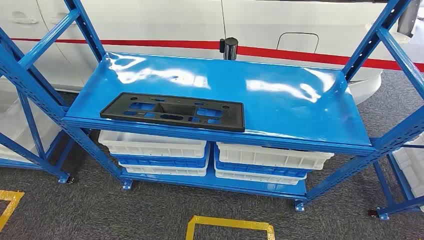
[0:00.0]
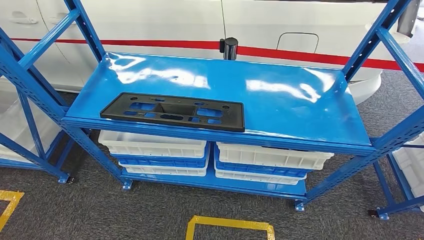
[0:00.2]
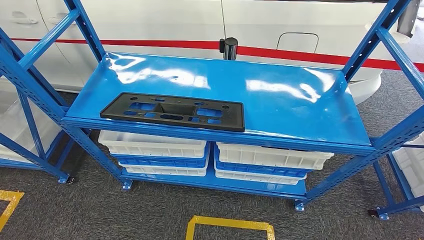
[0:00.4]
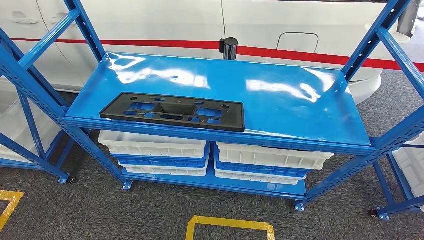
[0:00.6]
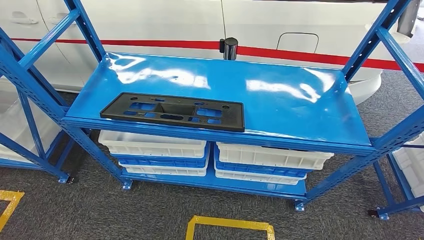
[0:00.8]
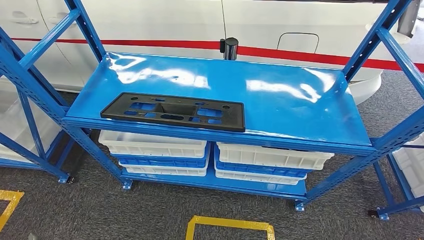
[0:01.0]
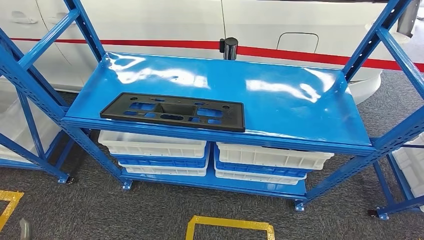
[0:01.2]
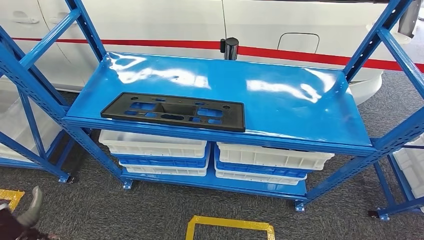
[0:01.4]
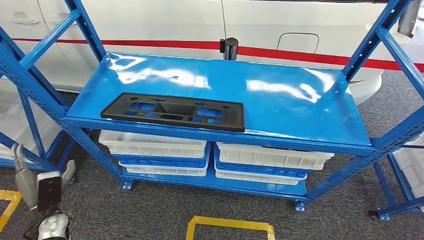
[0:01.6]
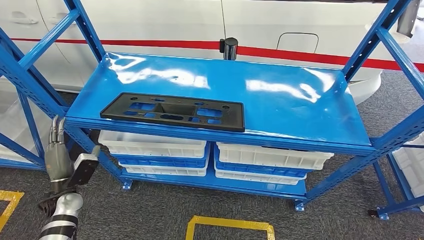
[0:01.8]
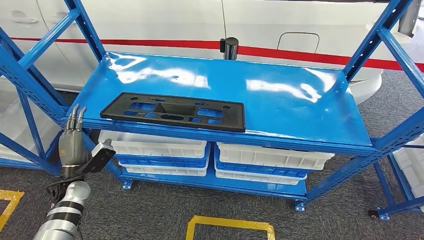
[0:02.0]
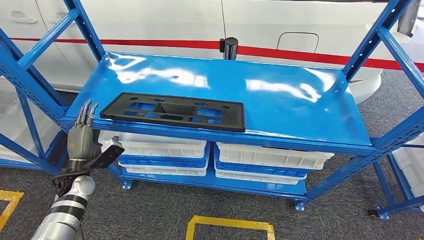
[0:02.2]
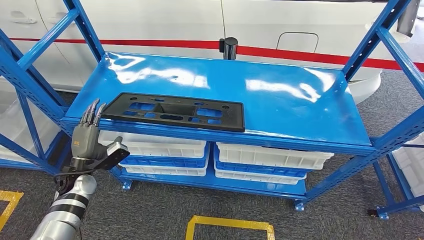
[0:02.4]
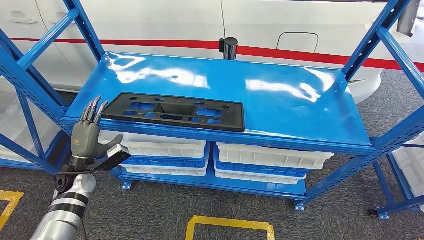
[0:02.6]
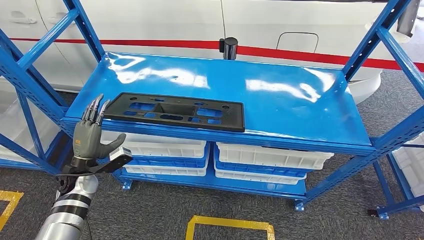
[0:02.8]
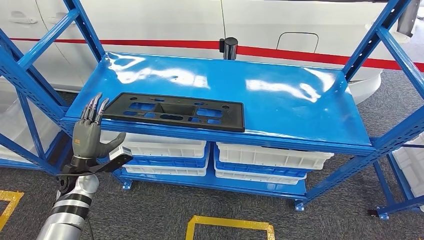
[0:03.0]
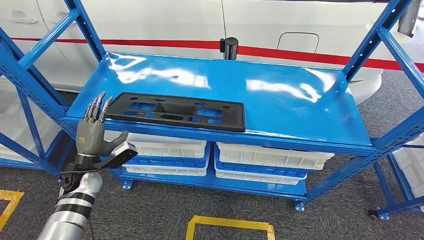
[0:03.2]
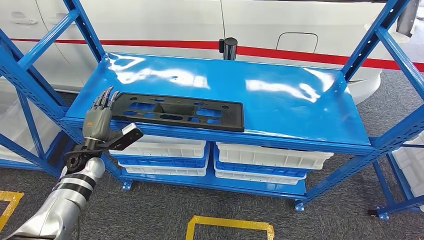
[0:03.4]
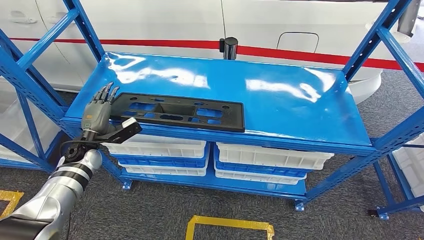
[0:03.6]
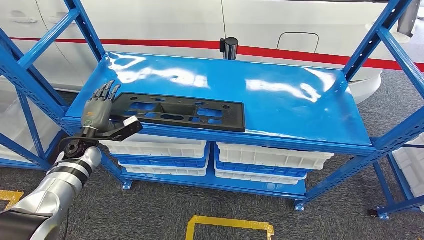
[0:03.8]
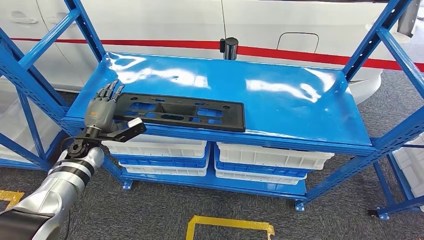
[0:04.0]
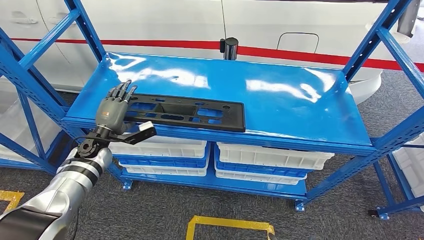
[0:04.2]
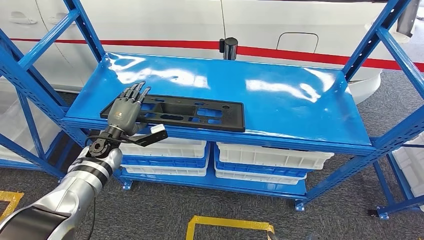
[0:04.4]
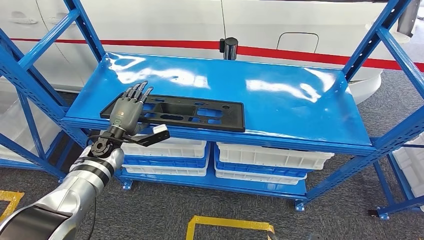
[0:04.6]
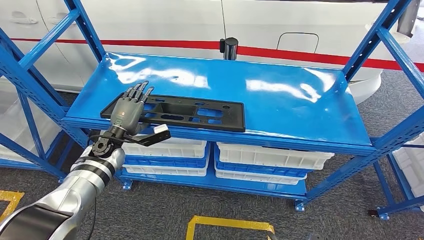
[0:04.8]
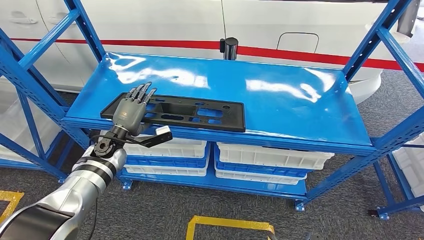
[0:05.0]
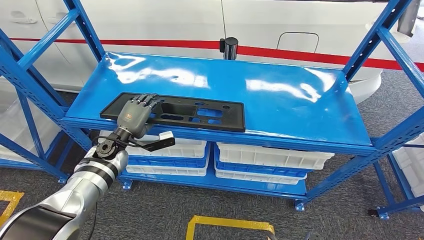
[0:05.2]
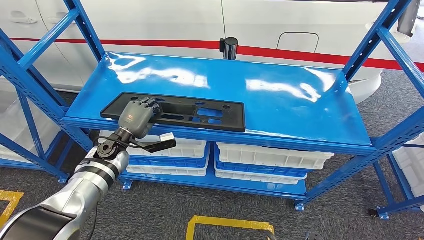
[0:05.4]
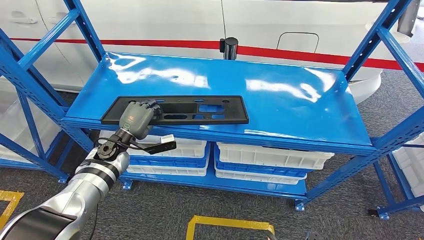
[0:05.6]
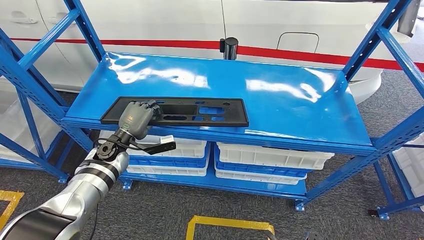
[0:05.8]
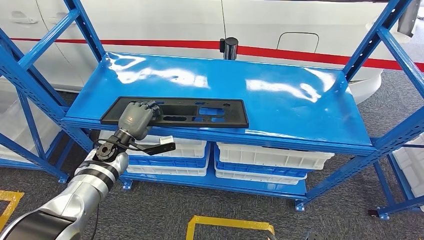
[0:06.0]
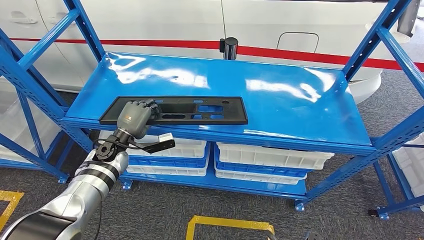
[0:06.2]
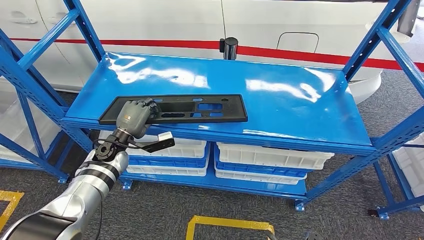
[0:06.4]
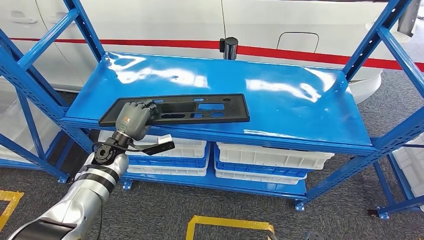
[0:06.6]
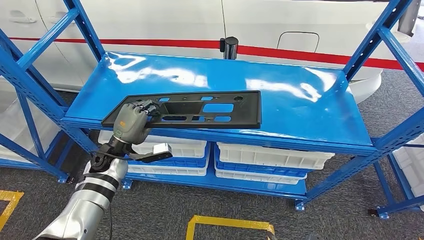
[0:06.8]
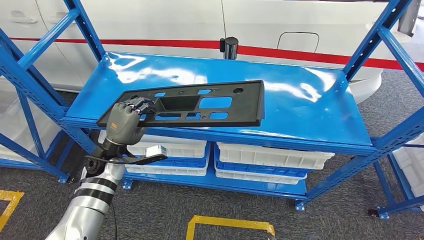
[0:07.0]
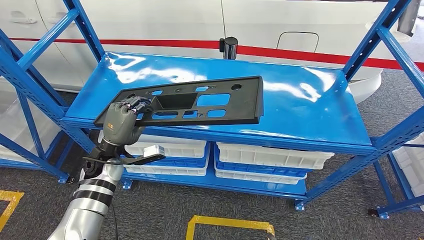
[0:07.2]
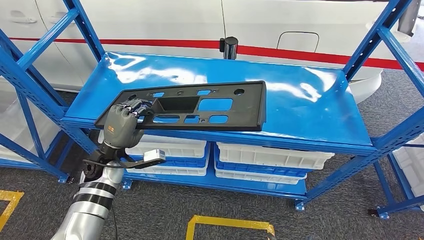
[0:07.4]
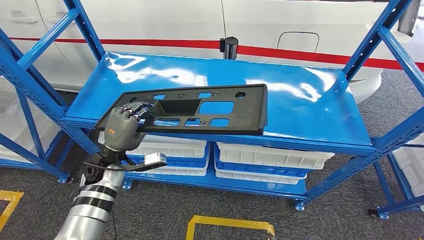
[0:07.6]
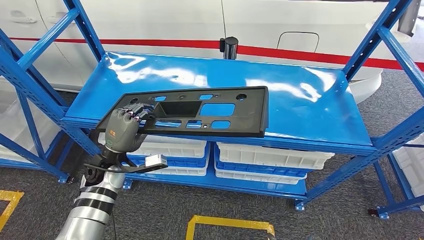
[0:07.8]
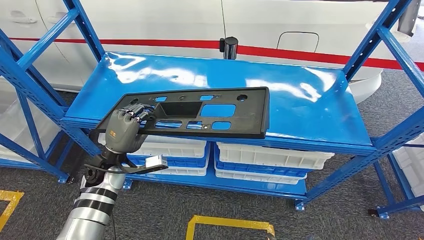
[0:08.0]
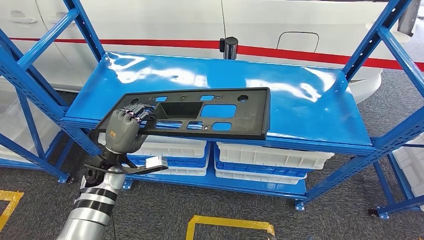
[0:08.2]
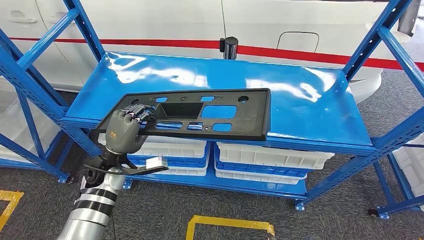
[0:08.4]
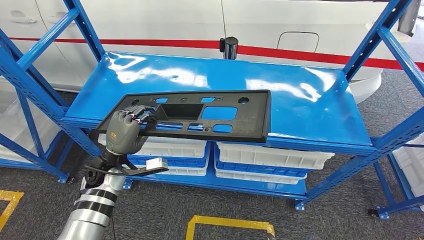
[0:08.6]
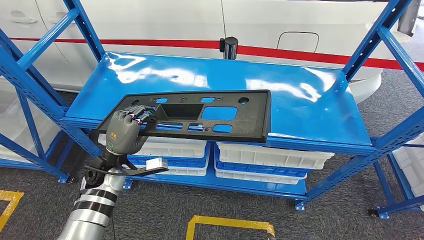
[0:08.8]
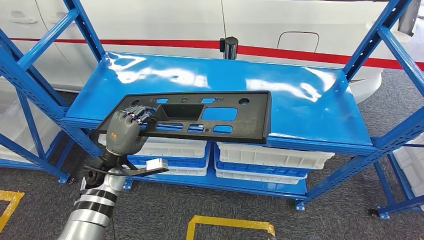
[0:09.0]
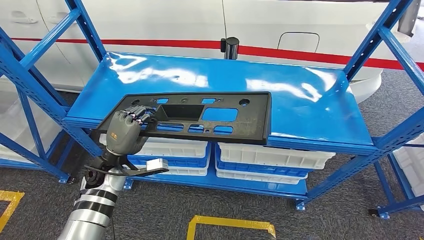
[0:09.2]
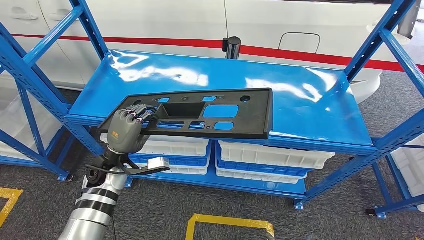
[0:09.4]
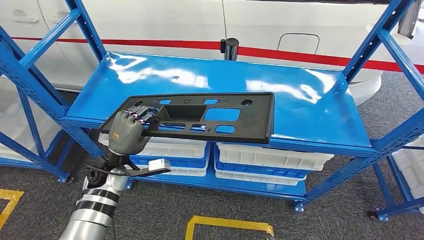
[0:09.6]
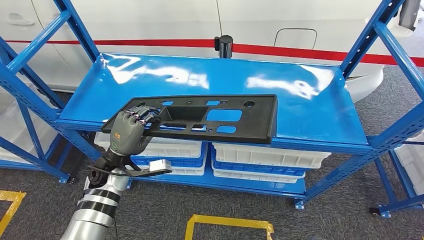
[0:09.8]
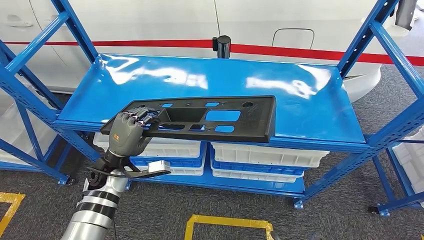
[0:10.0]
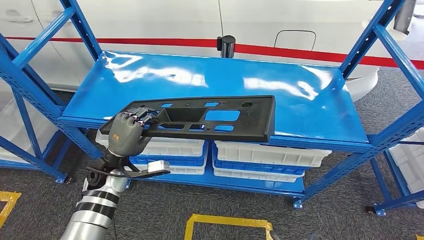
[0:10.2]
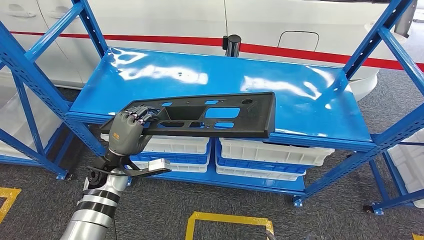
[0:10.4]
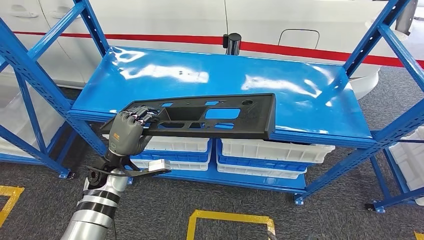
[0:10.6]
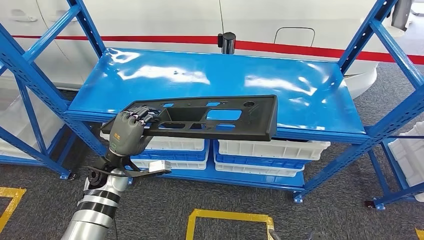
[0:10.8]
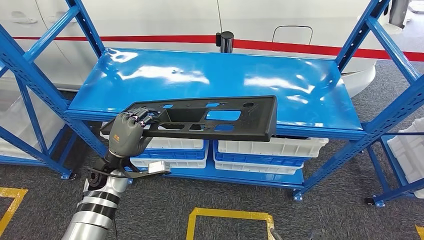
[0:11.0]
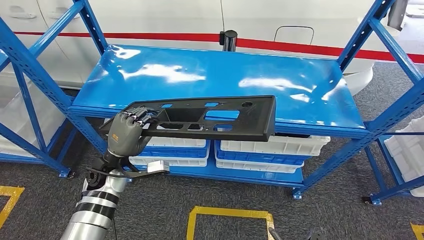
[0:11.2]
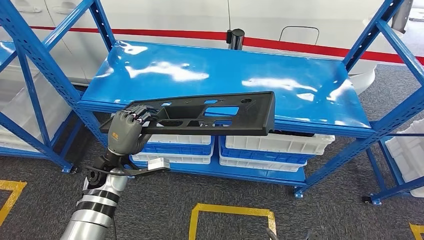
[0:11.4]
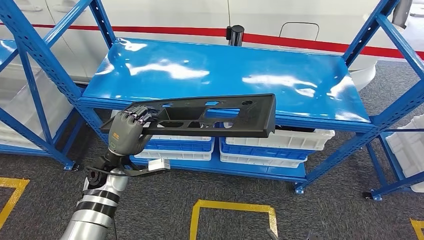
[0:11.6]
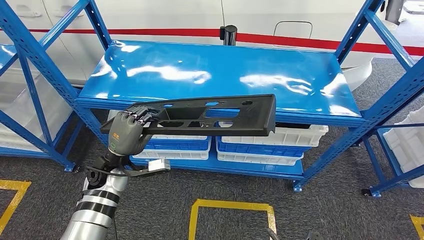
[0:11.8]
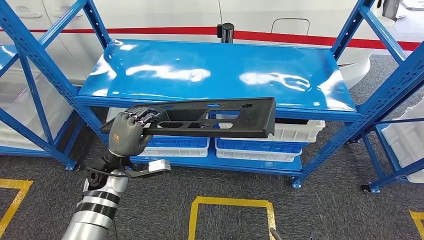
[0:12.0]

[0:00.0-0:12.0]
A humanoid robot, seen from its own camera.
Step, 0:00.0 to 0:10.2: Pick up the large material from the shelf.
0:01.6 to 0:03.0: The left hand goes about 15 cm forward, upward and to the right.
0:03.0 to 0:04.4: The left hand is displaced forward and to the right by approximately 10 cm.
0:04.4 to 0:06.0: The hands make only small movements.
0:06.0 to 0:07.6: The left hand shifts roughly 5 cm backward.
0:07.6 to 0:09.0: Both hands stay put.

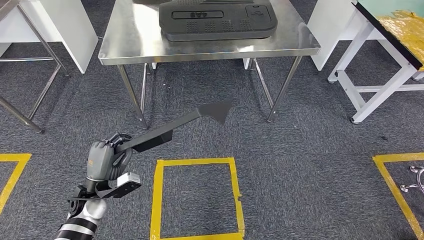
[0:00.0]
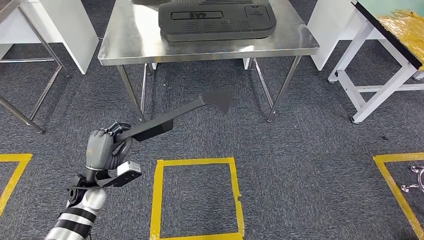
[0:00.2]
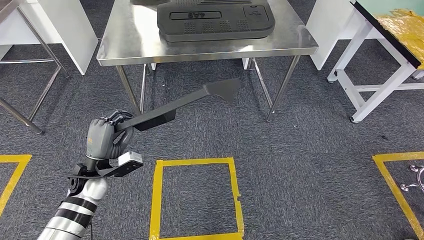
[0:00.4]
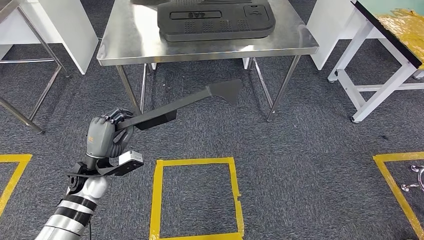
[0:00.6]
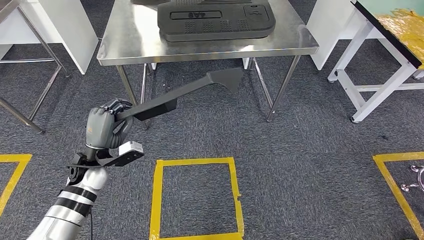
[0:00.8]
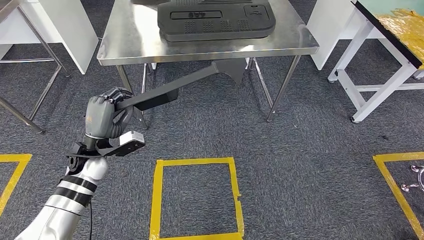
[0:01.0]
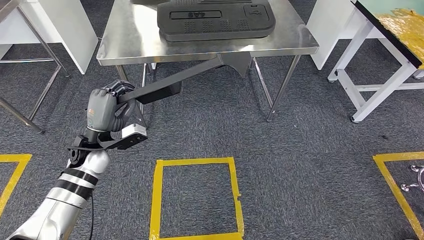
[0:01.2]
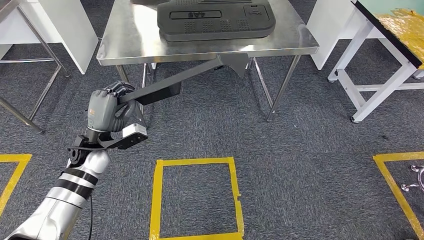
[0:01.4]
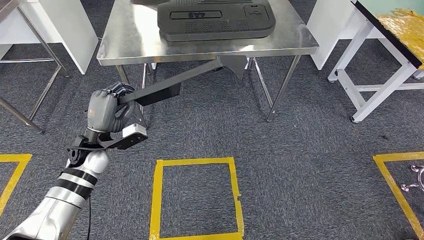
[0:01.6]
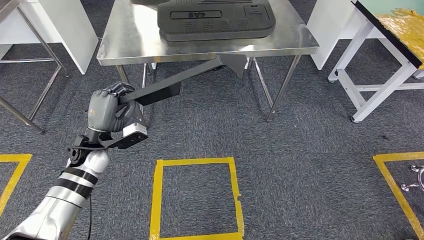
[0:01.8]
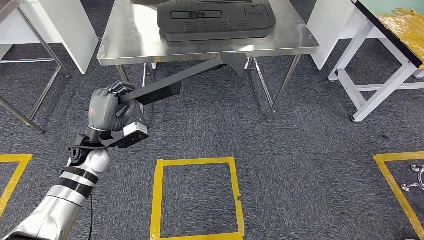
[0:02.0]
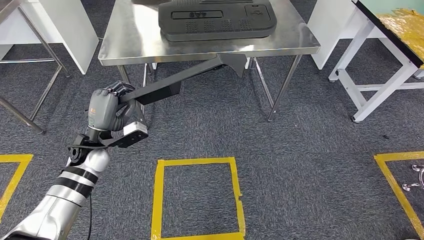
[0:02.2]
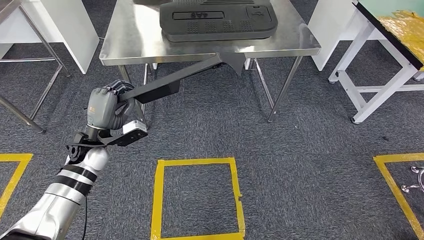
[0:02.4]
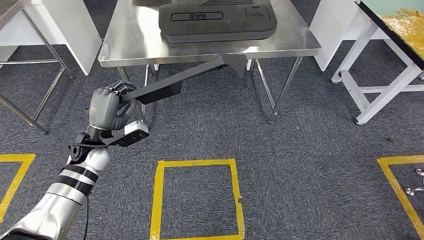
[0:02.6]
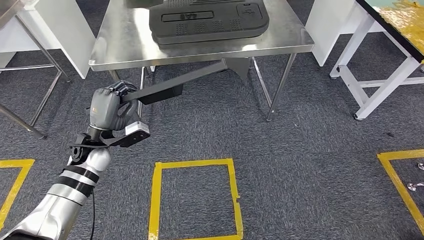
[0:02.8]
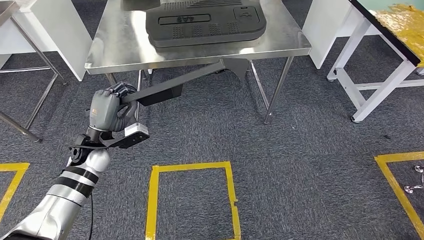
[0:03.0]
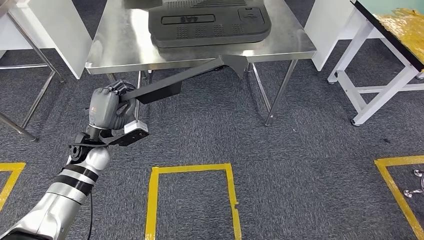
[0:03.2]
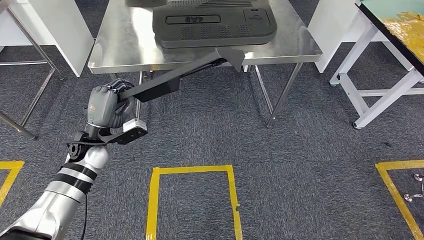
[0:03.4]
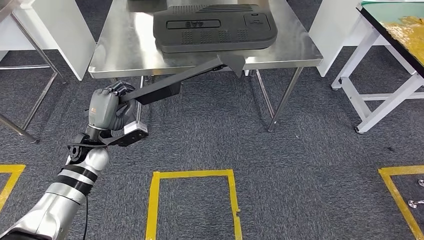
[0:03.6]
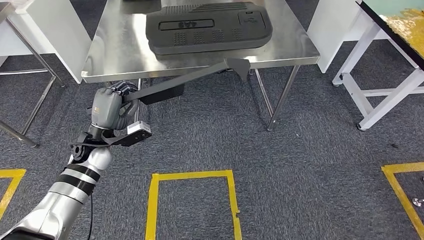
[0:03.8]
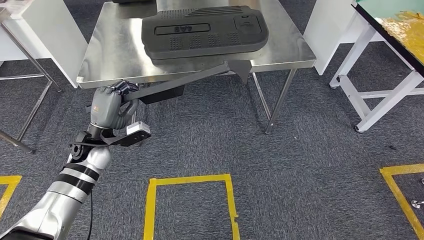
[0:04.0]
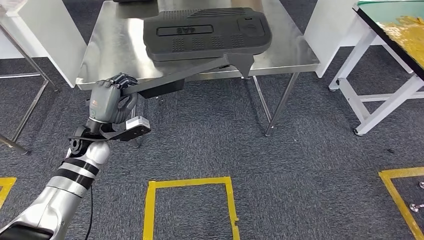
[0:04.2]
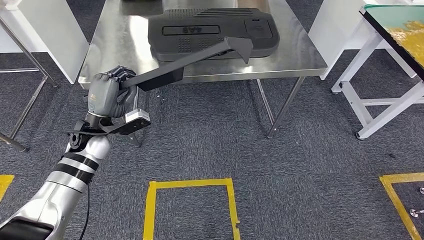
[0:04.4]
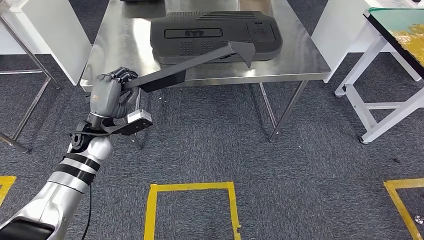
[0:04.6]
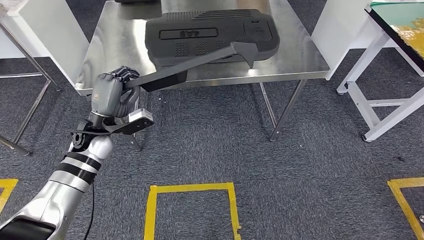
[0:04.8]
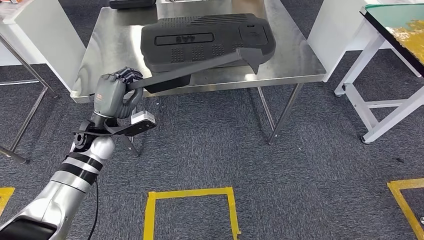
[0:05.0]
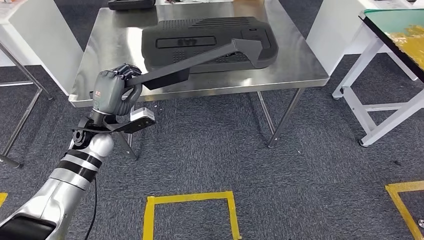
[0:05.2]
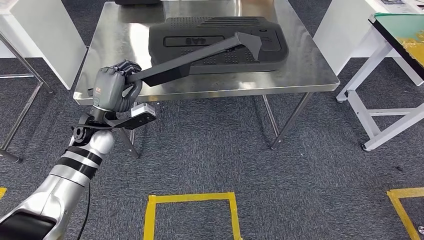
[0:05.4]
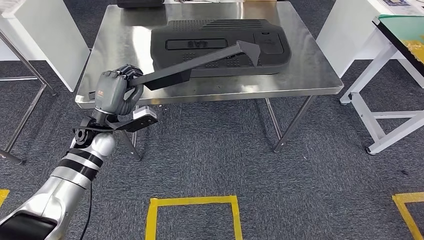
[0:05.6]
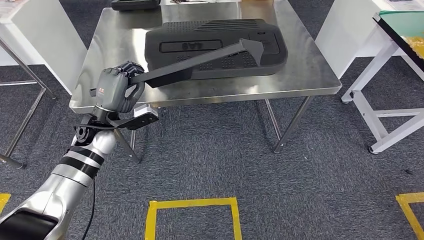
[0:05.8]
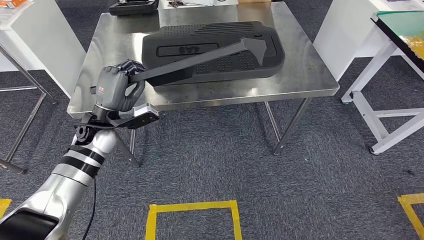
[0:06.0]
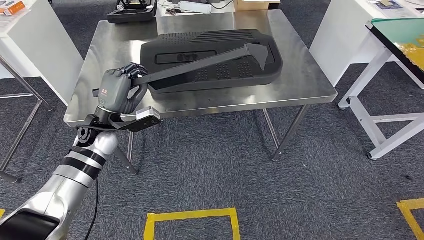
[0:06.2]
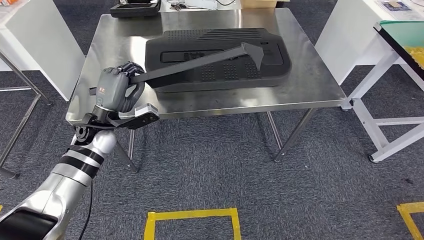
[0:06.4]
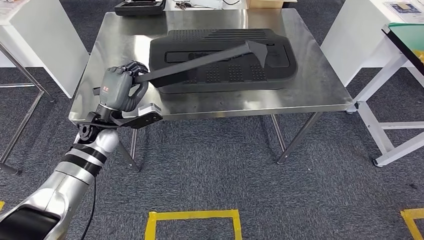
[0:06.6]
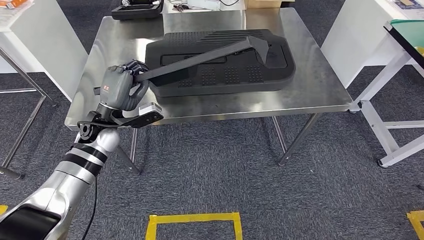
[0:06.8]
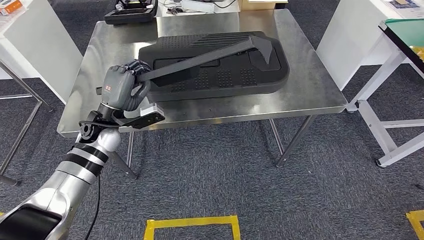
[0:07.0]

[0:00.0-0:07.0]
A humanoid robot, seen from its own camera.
0:00.0 to 0:01.4: The left hand travels upward and forward by some 15 cm.
0:01.4 to 0:02.8: The two hands keep their place.
